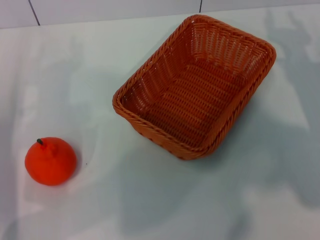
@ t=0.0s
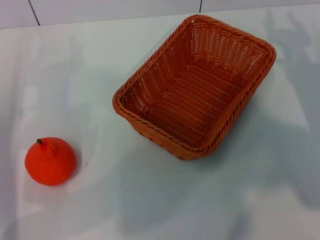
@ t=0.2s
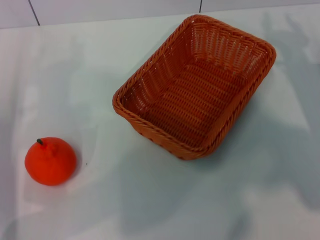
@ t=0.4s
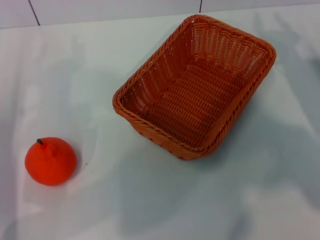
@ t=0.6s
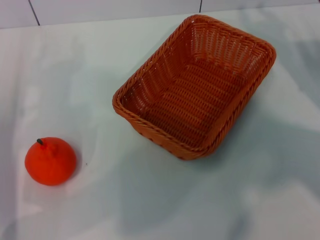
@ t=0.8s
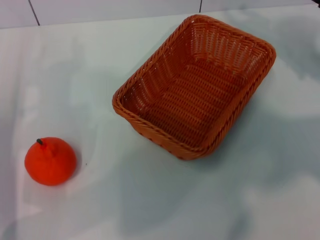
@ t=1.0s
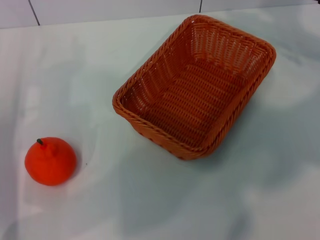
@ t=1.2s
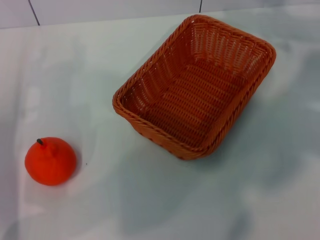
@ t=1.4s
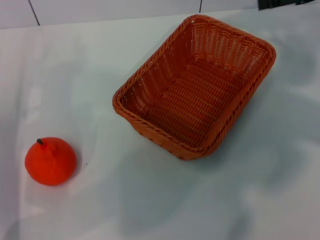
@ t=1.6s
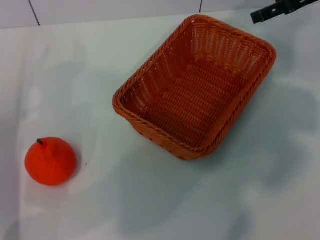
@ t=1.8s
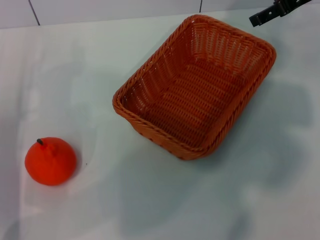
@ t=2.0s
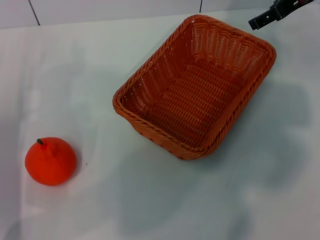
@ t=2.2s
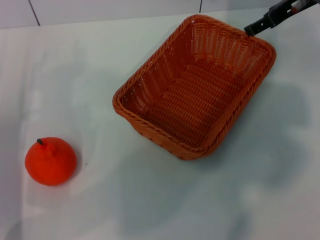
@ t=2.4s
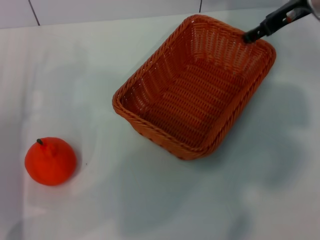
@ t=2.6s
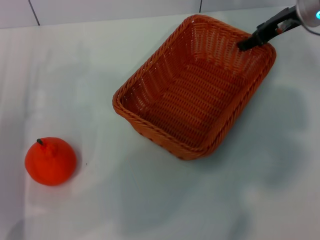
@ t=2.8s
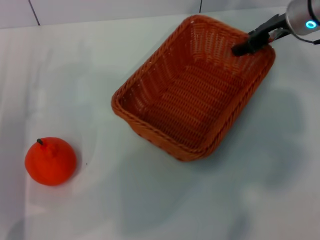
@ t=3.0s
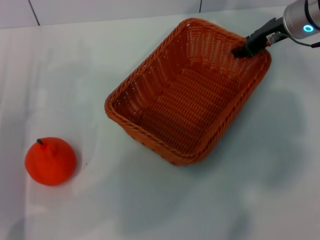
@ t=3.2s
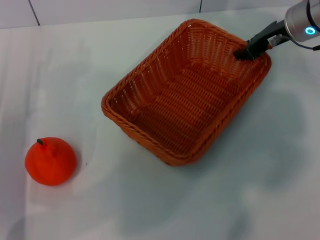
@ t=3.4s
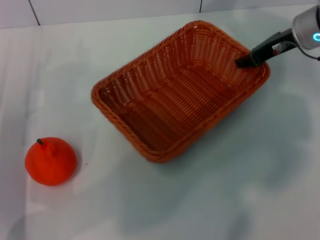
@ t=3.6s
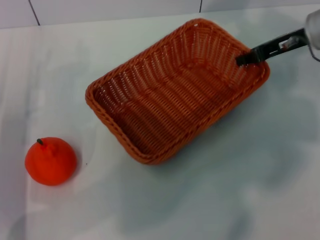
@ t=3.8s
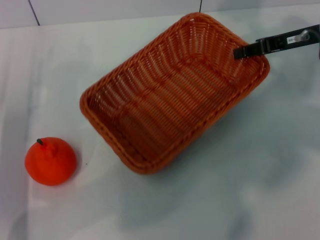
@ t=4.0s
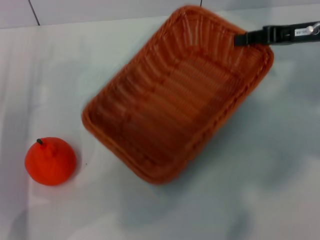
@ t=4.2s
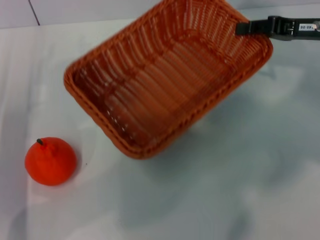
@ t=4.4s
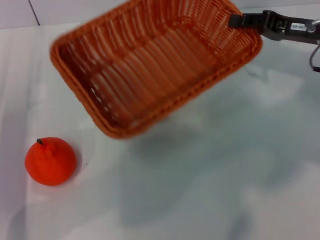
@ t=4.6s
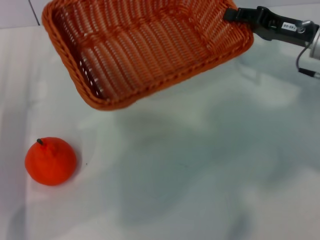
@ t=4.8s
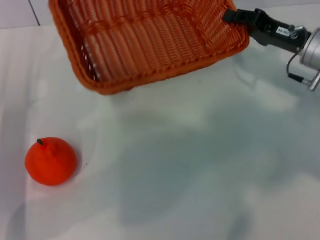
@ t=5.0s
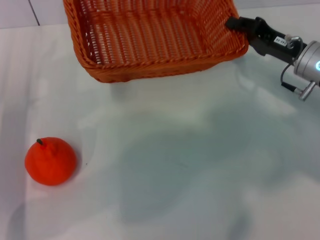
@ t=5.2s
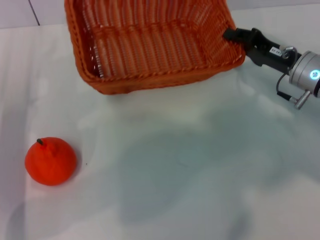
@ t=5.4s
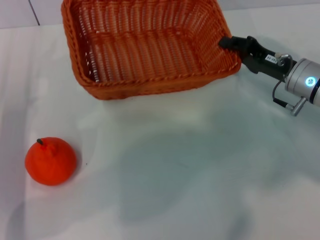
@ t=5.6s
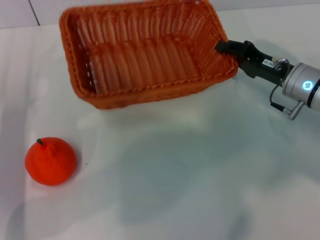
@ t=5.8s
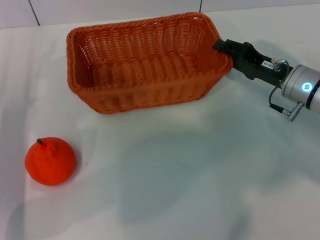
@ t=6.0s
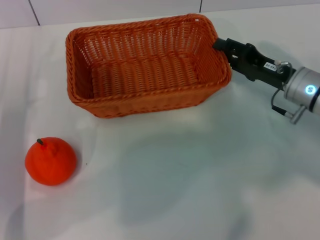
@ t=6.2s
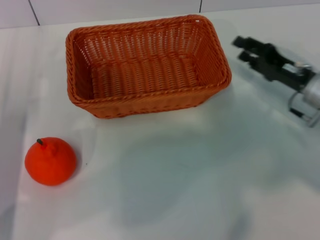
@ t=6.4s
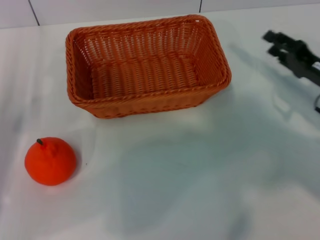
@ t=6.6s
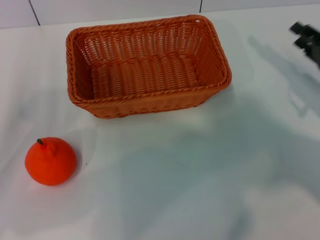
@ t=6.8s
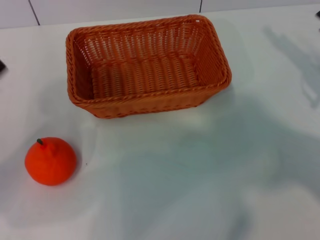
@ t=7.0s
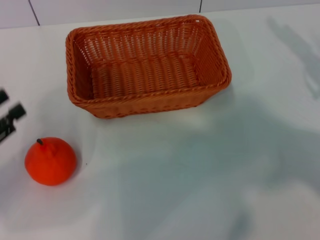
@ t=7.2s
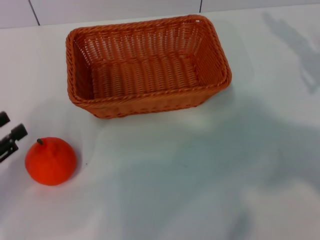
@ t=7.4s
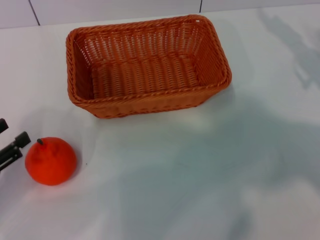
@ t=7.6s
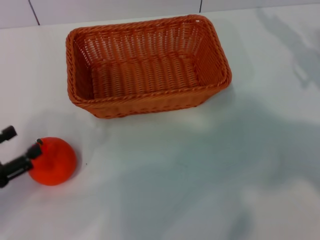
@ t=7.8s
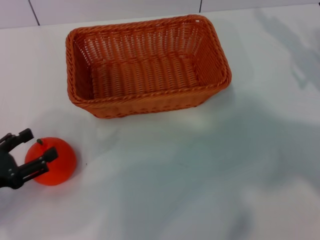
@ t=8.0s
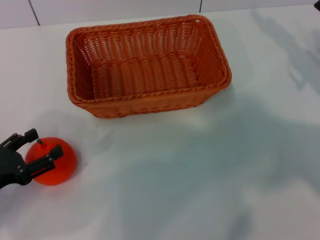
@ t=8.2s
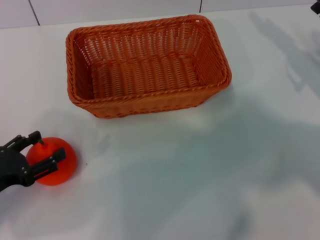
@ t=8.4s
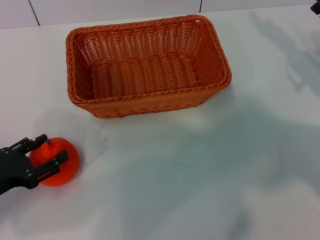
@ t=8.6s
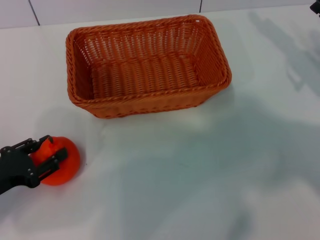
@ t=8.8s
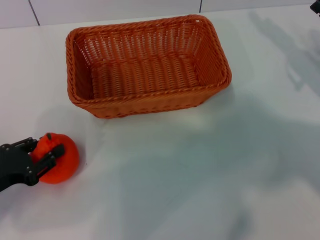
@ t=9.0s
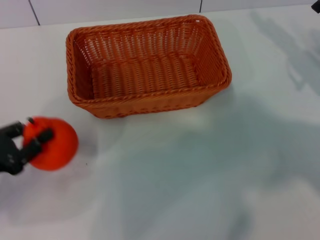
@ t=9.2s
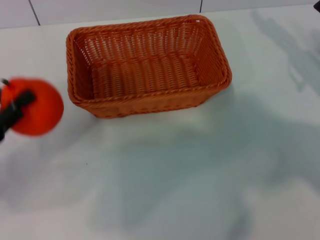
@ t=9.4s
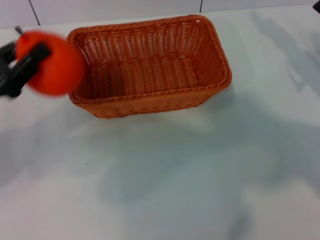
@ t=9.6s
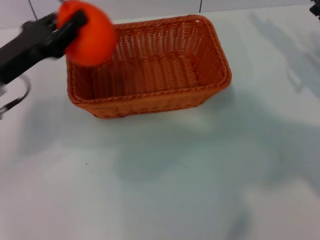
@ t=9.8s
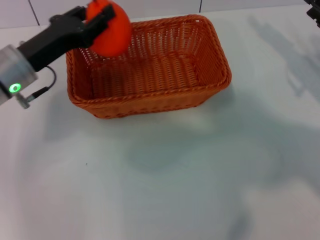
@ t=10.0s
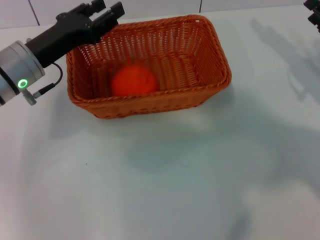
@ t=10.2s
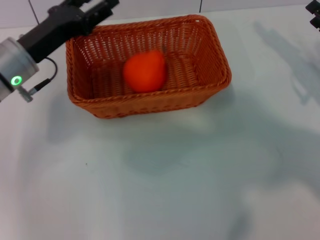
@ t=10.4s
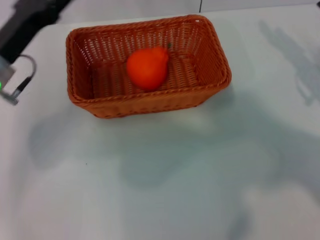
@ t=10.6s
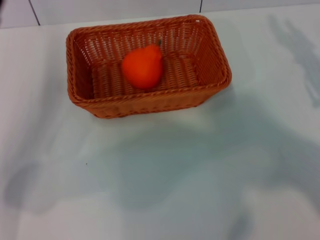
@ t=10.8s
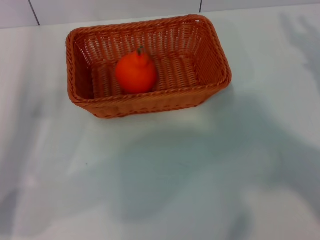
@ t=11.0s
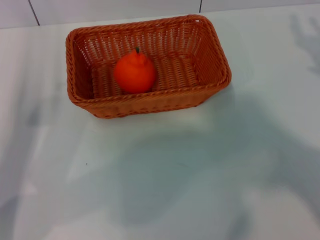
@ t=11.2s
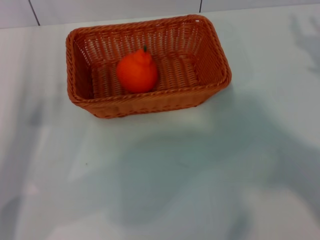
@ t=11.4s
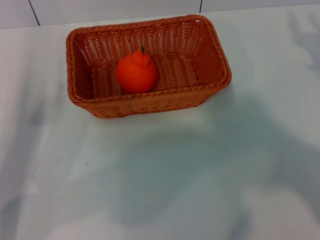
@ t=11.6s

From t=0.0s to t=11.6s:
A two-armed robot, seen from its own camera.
Task of the whole recording: the right gripper pick up the yellow basket and place it horizontally in the middle of the table, the left gripper pick up the orange and place it into the yellow basket.
Step, from t=0.0s to t=4.2s: Pick up the light basket with the right gripper.
Step, from t=4.6s to t=6.4s: Place the light basket in the center of view with the right gripper.
Step, from t=6.6s to t=9.0s: Pick up the orange with the left gripper.
Step, from t=9.2s to t=10.2s: Place the orange into the light basket with the left gripper.
From t=0.0s to t=1.4s: The right gripper moves upward, roughly 15 cm.
From t=1.4s to t=2.8s: The right gripper moves to the left, forward and downward, some 10 cm, and opens its fingers.
From t=2.8s to t=4.4s: The right gripper shifts about 5 cm backward, and closes its fingers.
From t=4.4s to t=5.8s: The right gripper goes approximately 10 cm downward.
From t=5.8s to t=7.2s: The left gripper travels to the left and backward by approximately 10 cm. Meanwhile the right gripper moves to the right, approximately 15 cm, and opens up.
From t=7.2s to t=8.8s: The left gripper is displaced downward by some 5 cm, and opens and closes again.
From t=8.8s to t=10.2s: The left gripper moves forward, to the right and upward, approximately 20 cm, and closes, then reopens.
From t=10.2s to t=11.6s: The left gripper is displaced backward and to the left by some 10 cm, and opens up. Meanwhile the right gripper moves backward, roughly 5 cm.
